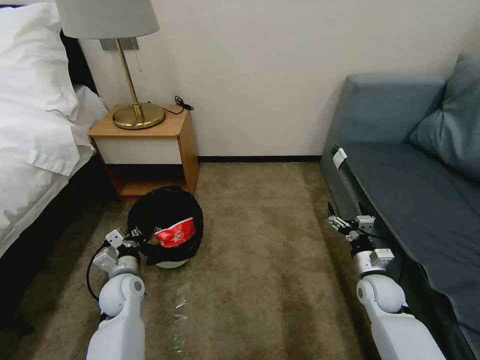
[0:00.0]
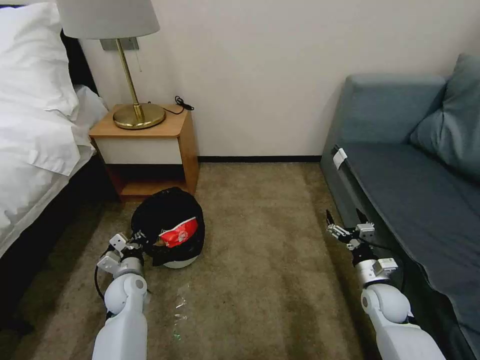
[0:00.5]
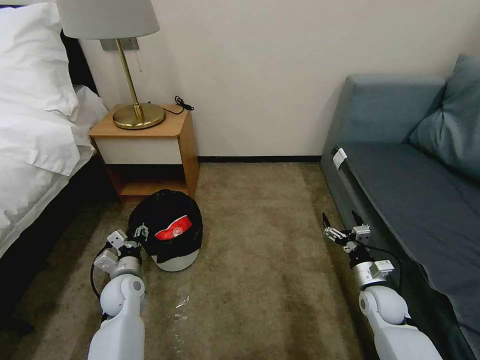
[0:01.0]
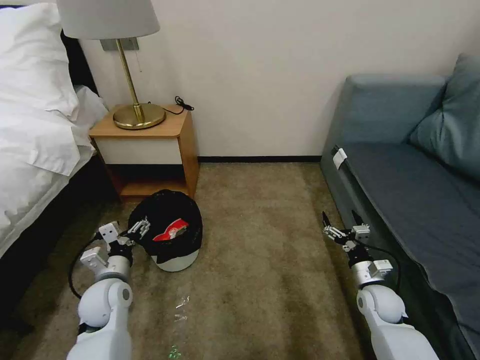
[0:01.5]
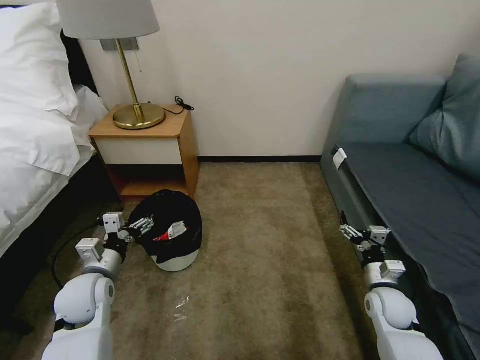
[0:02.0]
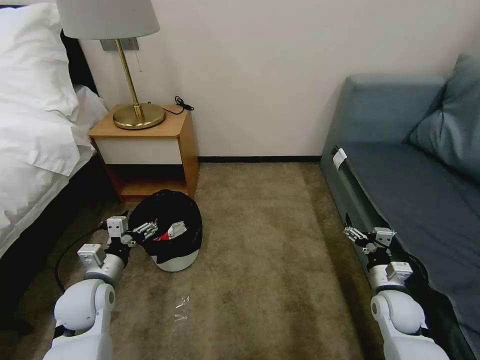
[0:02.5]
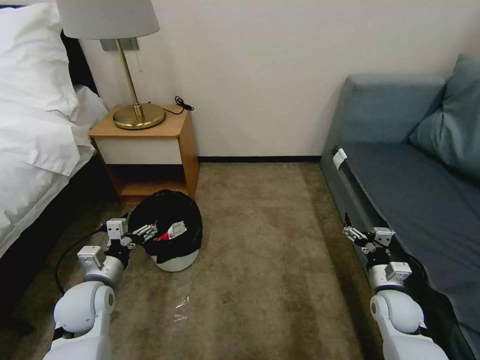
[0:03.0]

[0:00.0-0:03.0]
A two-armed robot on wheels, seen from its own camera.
Task of the whole recording: Pick up the trash bin, then pick up the garbage on the floor and place it into the trash bin.
0:00.0 to 0:01.5: The left gripper goes about 5 cm upward, and opens up.

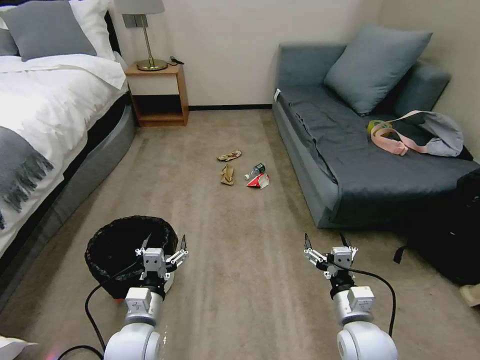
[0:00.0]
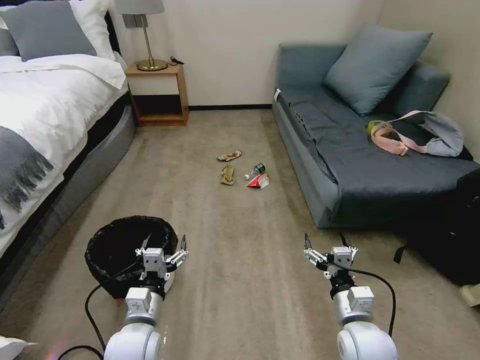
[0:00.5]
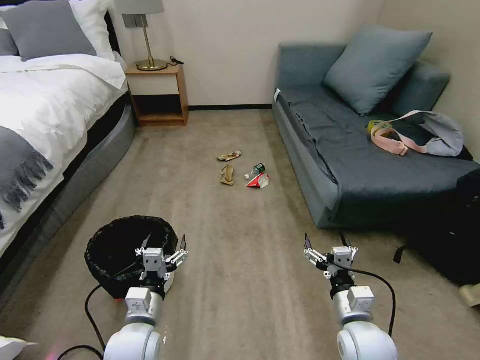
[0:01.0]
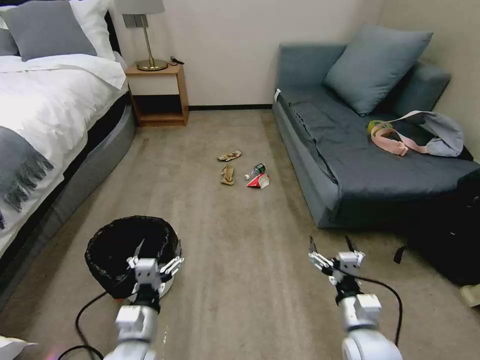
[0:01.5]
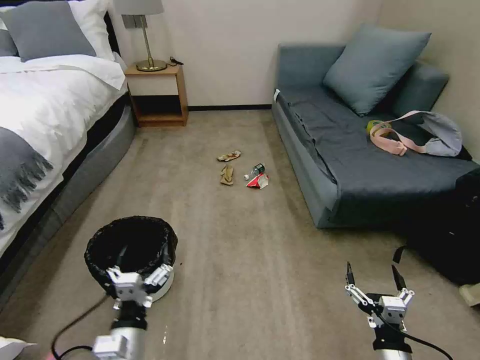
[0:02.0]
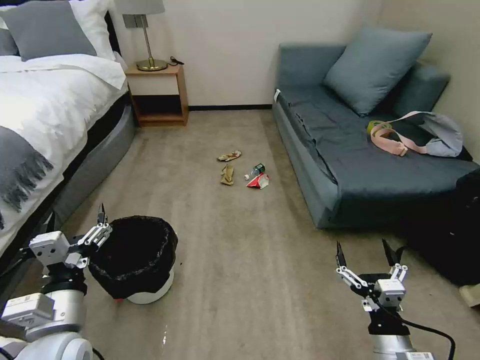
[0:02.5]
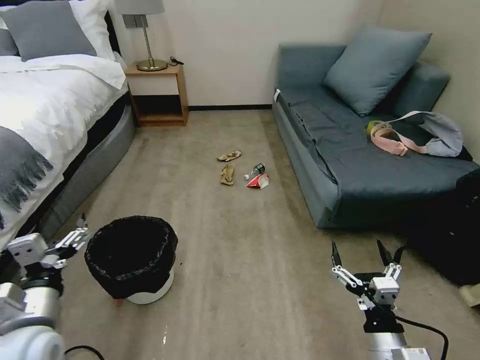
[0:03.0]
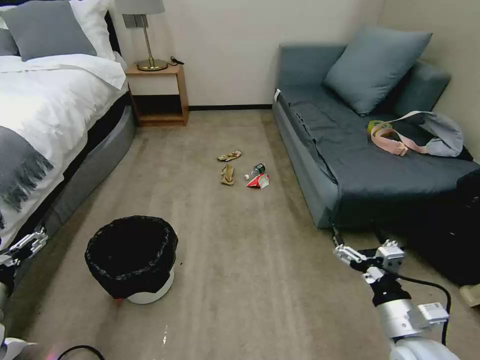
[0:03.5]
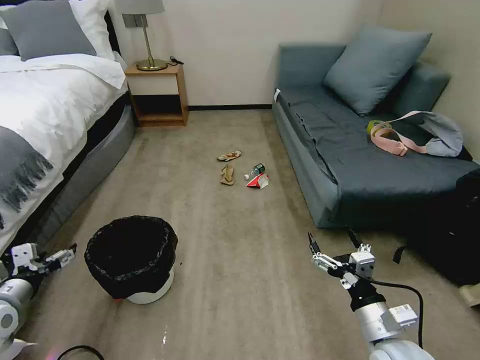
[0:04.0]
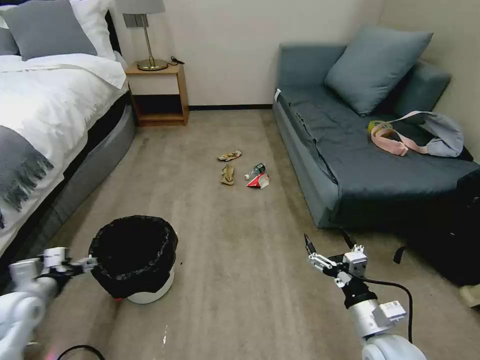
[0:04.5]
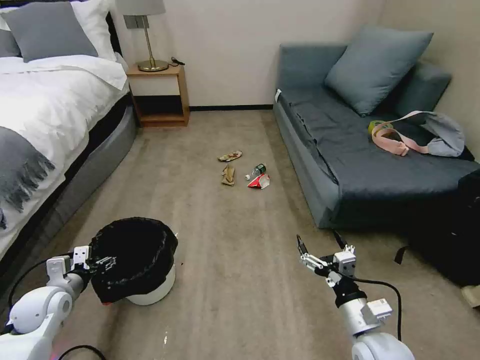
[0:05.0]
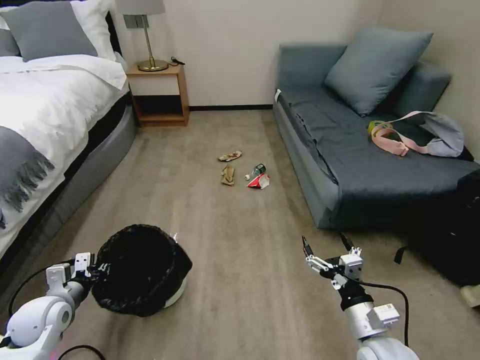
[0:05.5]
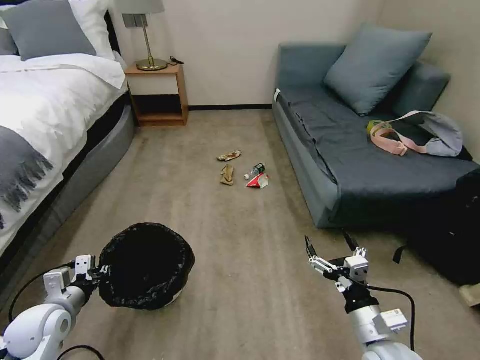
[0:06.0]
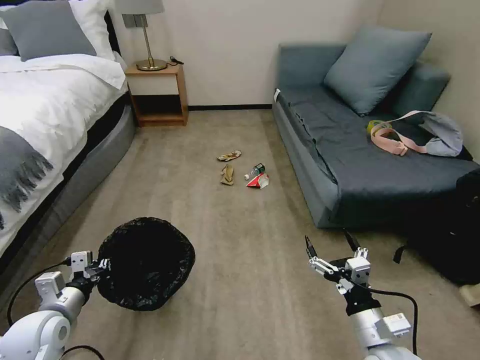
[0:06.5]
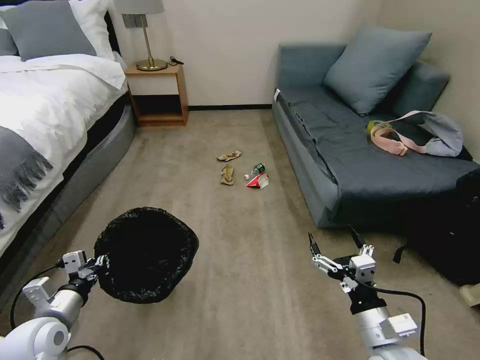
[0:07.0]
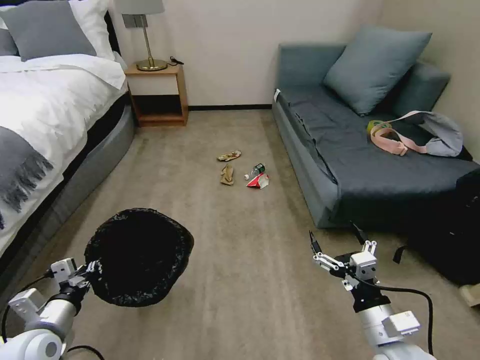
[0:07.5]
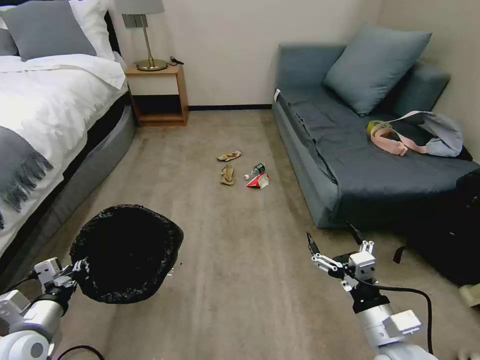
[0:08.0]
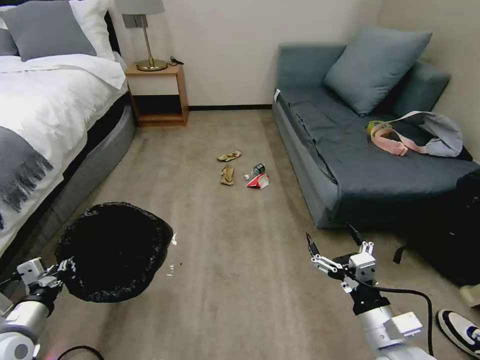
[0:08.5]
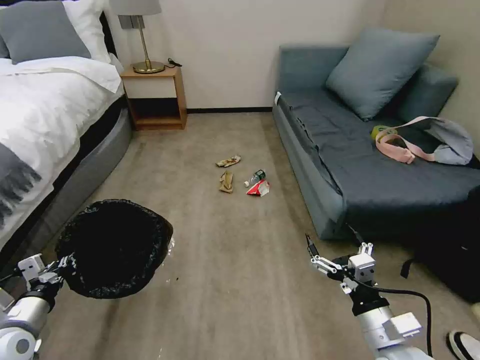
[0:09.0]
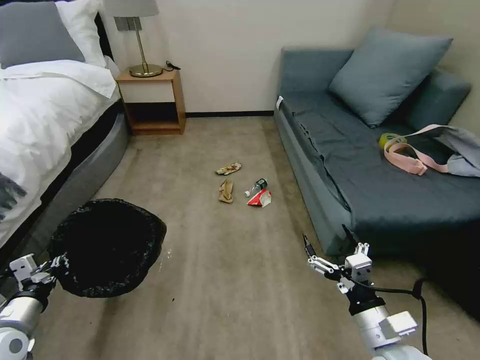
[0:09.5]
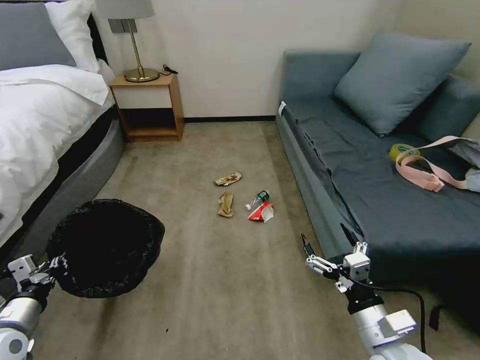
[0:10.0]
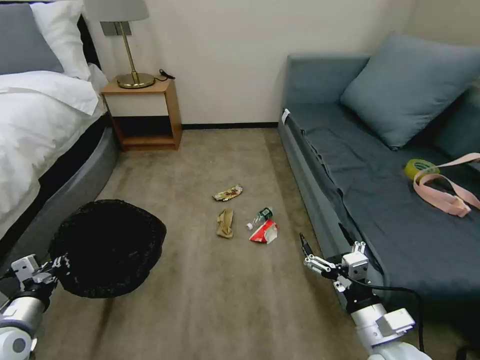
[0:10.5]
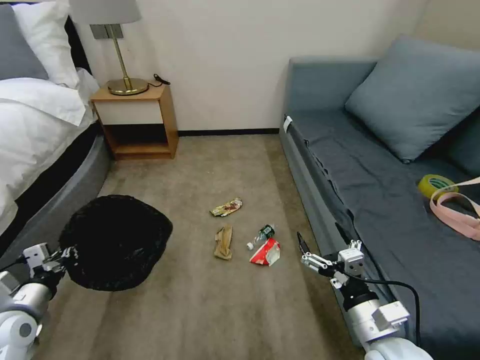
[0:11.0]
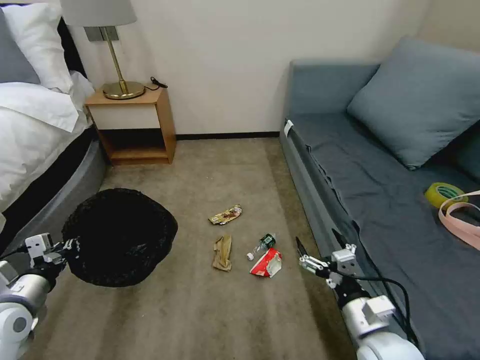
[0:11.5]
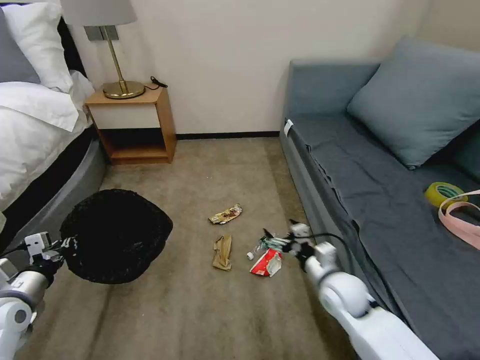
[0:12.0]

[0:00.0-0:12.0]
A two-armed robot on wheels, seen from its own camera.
Task of the whole recording: Pick up the trash bin, then pick up the garbage on the floor and place it into the trash bin.
0:02.0 to 0:04.0: The right gripper is displaced upward and forward by some 10 cm. Meanwhile the left gripper goes approximately 25 cm to the left.
0:04.0 to 0:06.0: The left gripper goes roughly 10 cm downward and to the right, and closes its fingers.
0:06.0 to 0:08.0: The left gripper moves backward, approximately 5 cm.
0:10.0 to 0:12.0: The right gripper is displaced forward by some 15 cm; the left gripper moves forward, roughly 5 cm.

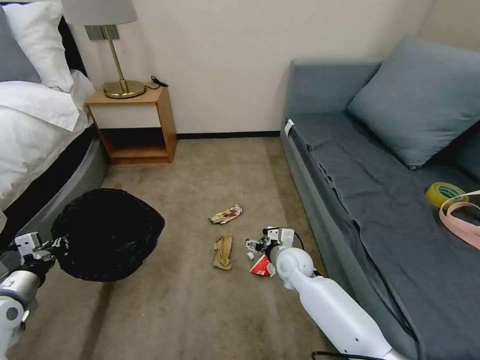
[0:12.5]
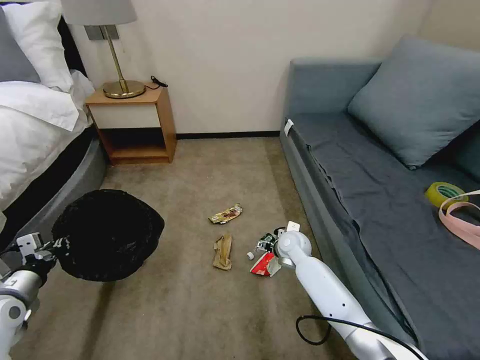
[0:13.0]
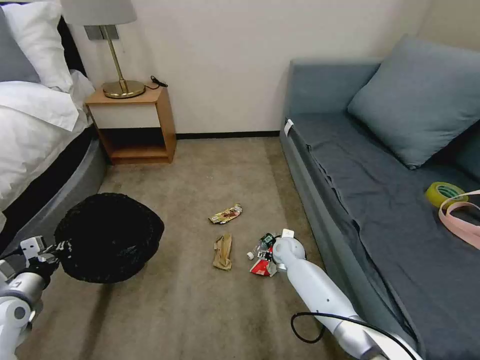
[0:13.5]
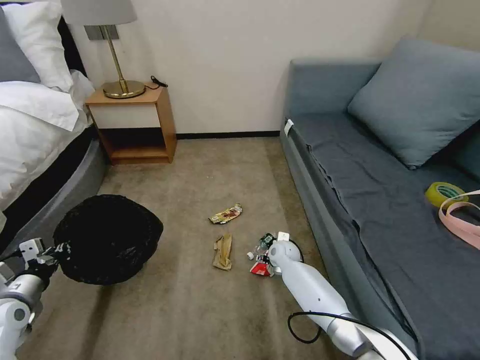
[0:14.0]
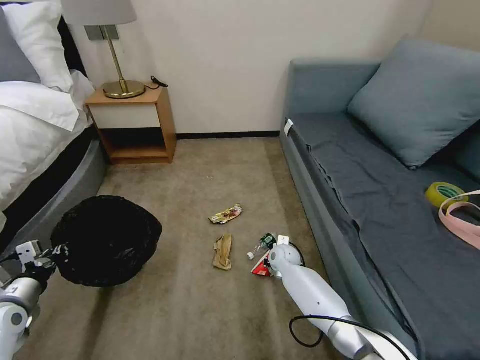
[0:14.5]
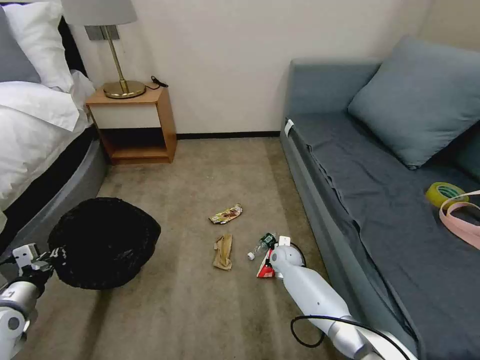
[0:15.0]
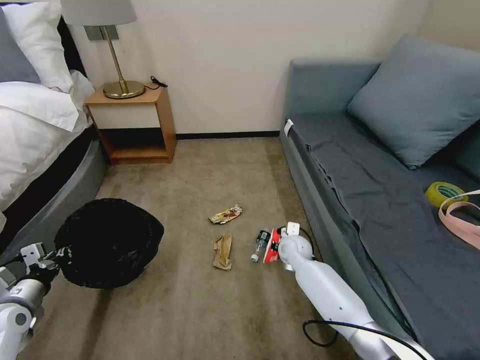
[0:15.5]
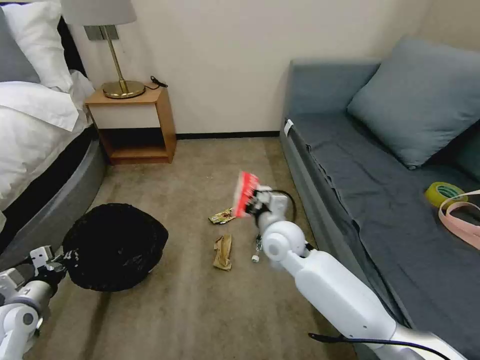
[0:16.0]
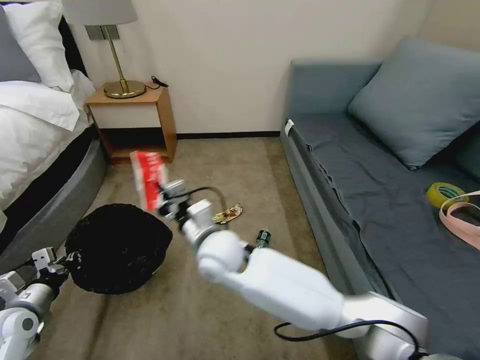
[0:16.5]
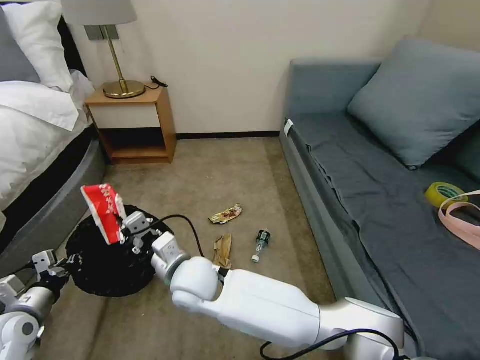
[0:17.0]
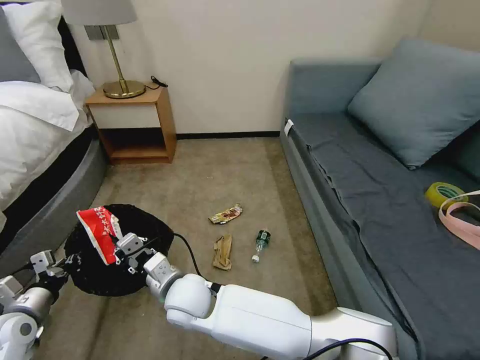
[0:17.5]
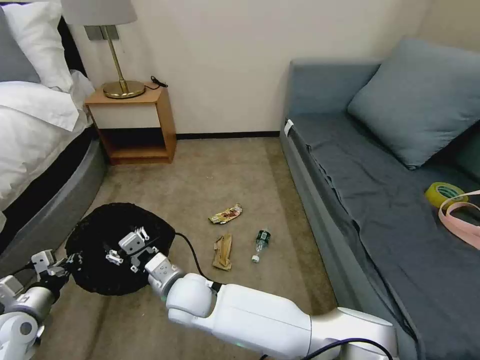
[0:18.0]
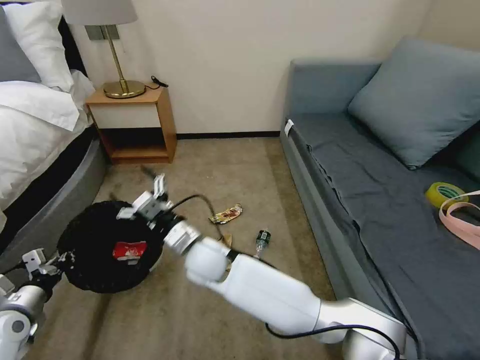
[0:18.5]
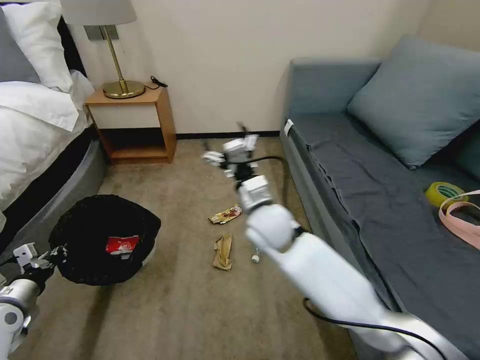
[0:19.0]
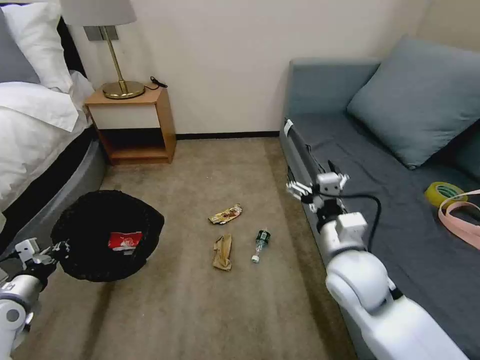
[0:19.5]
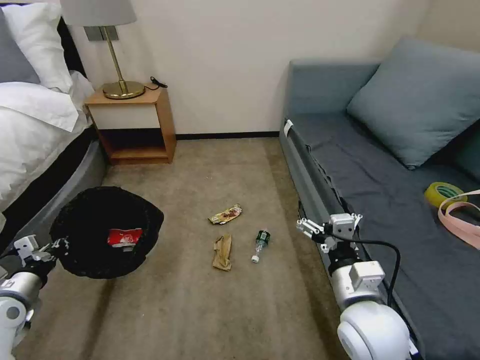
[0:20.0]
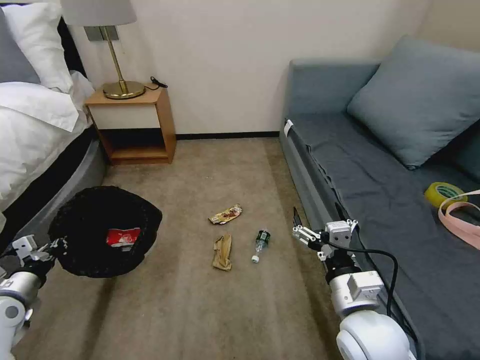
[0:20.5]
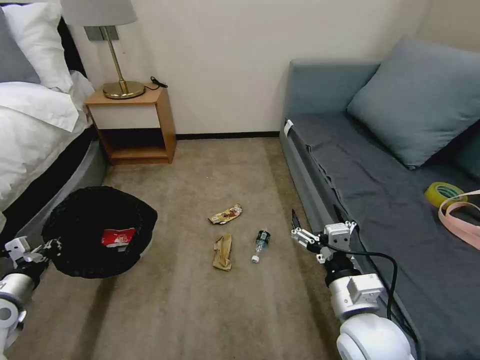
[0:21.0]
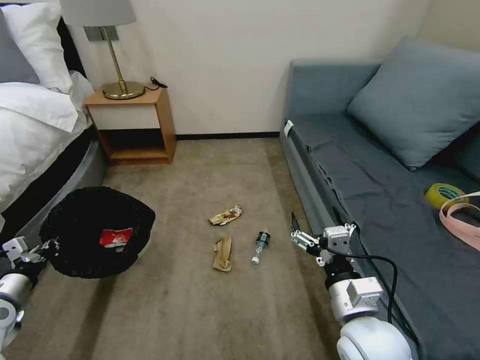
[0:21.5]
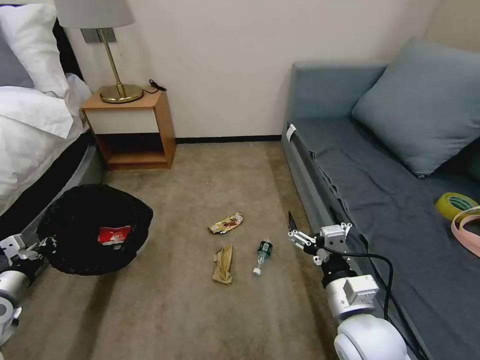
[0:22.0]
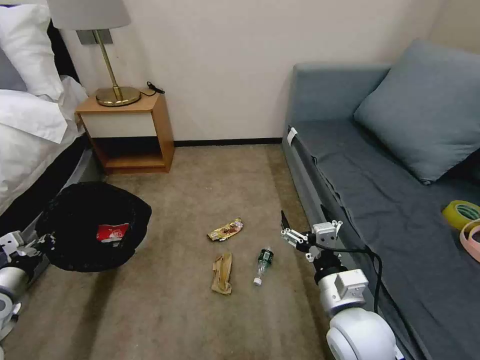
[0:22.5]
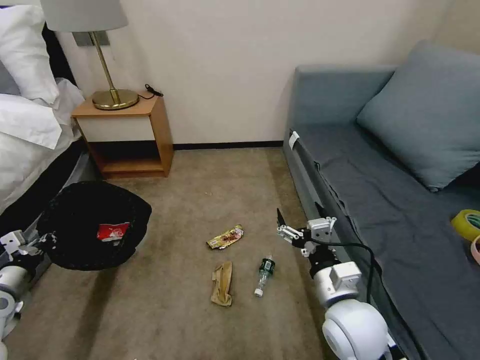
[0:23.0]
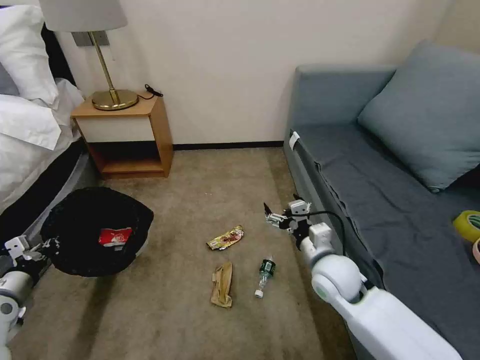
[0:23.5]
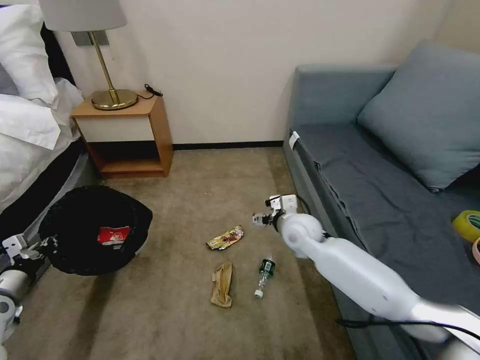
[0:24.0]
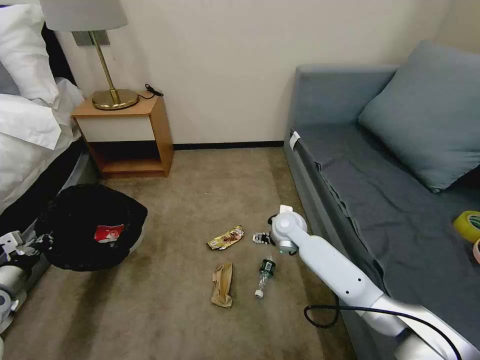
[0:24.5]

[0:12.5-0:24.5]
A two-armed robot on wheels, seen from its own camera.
Task of the whole recording: Pick up the trash bin, then pick up the garbage on the floor and place it into the trash bin.
0:12.5 to 0:14.5: The right gripper travels downward and forward by approximately 10 cm, and closes its fingers.
0:14.5 to 0:16.5: The right gripper shifts roughly 30 cm upward, to the left and backward, and closes up.
0:16.5 to 0:18.5: The right gripper opens its fingers.
0:18.5 to 0:20.5: The right gripper goes roughly 35 cm to the right and backward.
0:22.5 to 0:24.5: The right gripper moves forward, some 30 cm.
